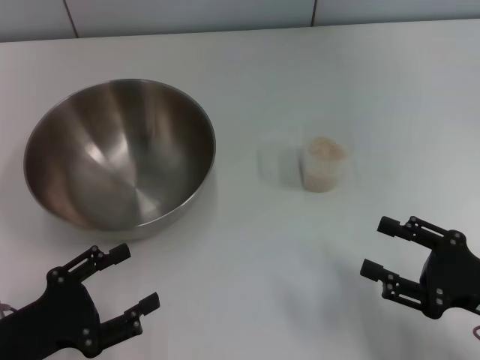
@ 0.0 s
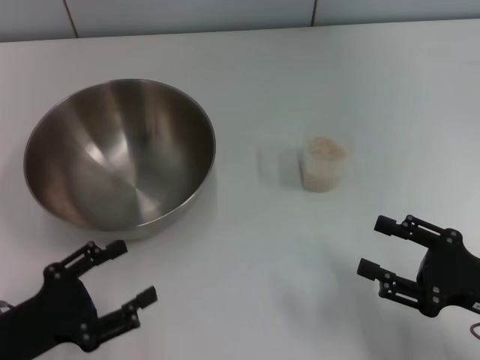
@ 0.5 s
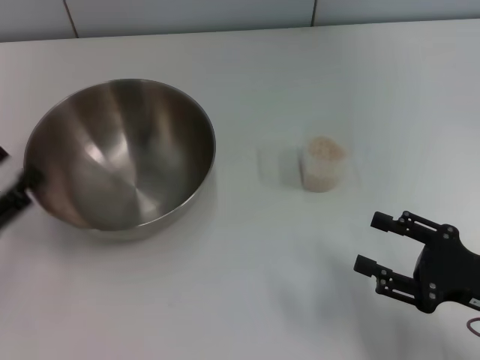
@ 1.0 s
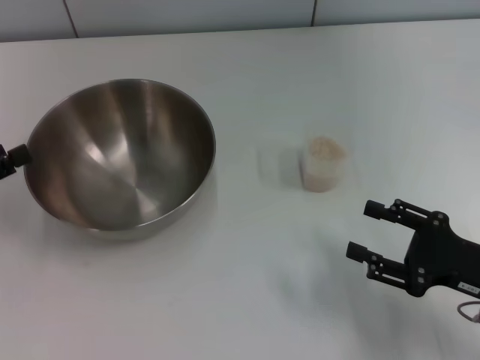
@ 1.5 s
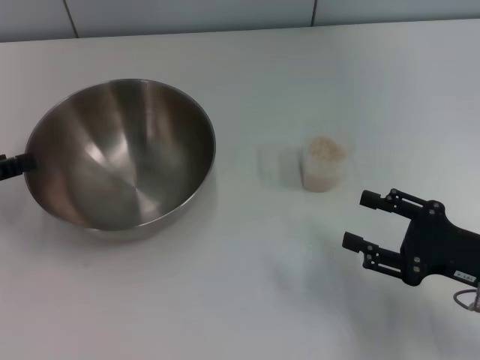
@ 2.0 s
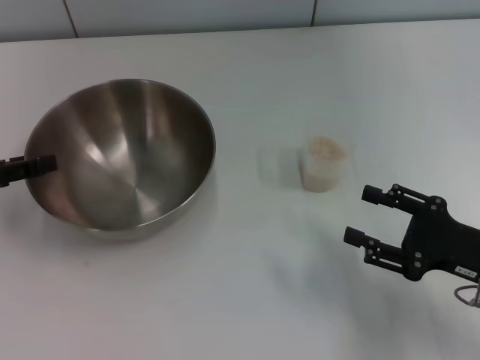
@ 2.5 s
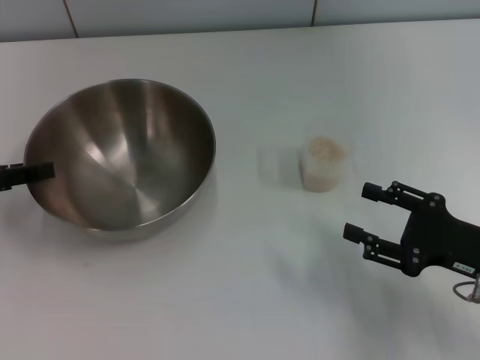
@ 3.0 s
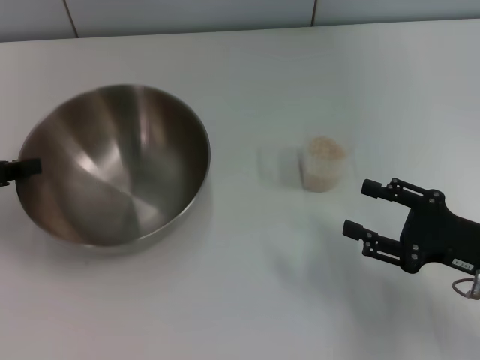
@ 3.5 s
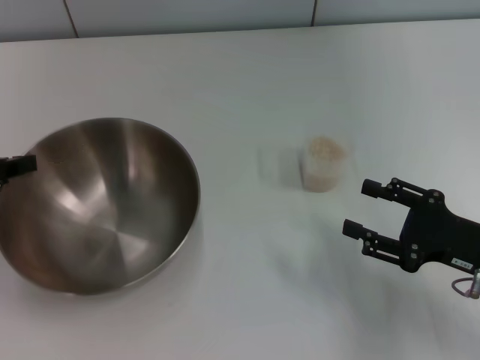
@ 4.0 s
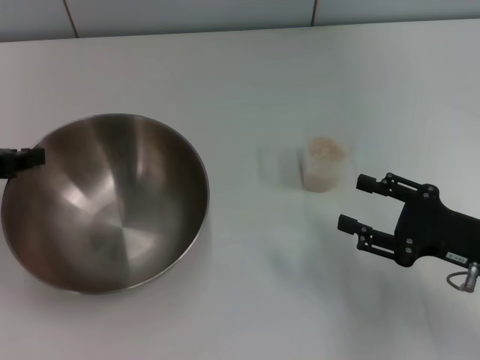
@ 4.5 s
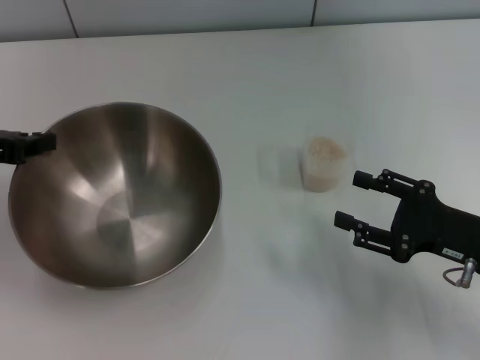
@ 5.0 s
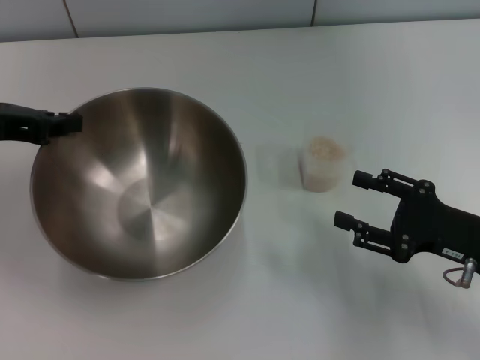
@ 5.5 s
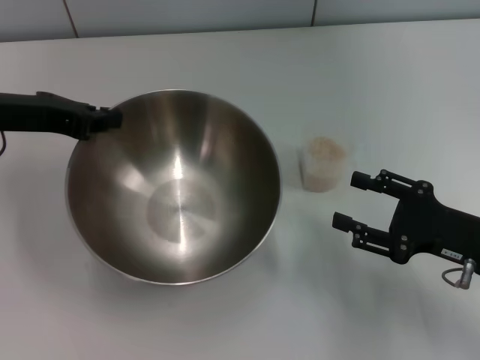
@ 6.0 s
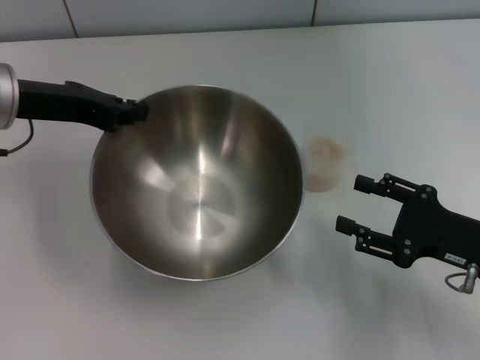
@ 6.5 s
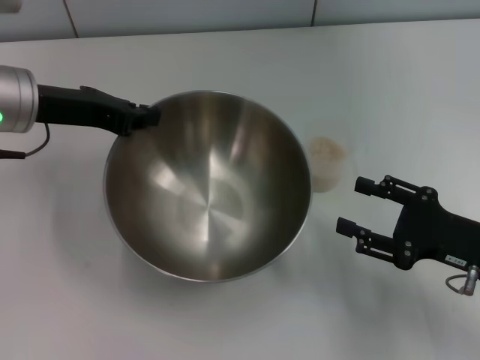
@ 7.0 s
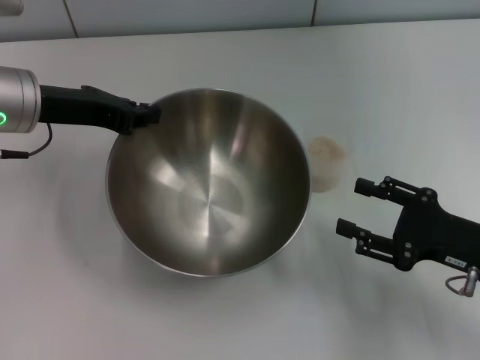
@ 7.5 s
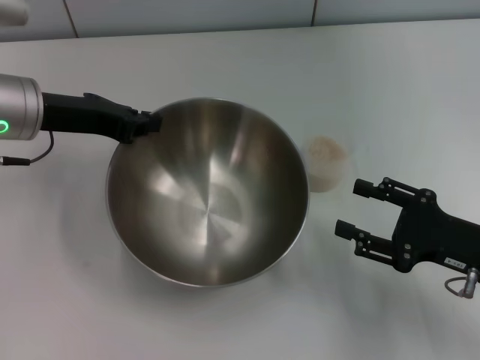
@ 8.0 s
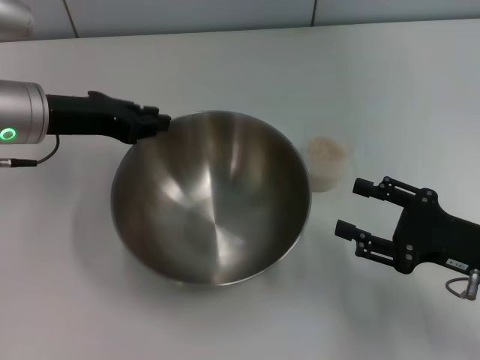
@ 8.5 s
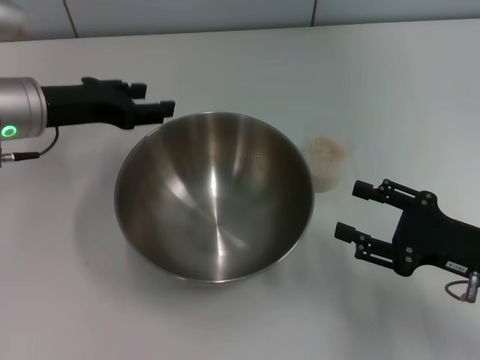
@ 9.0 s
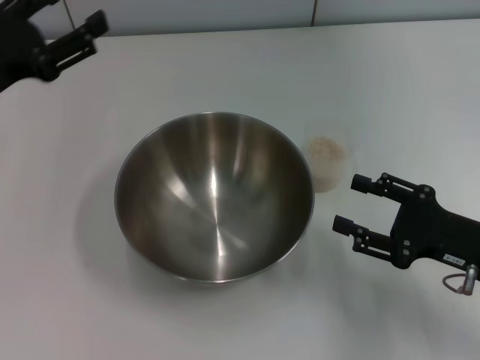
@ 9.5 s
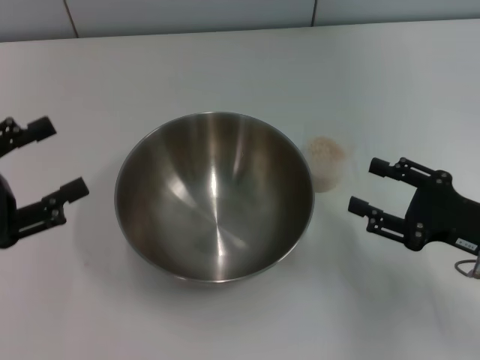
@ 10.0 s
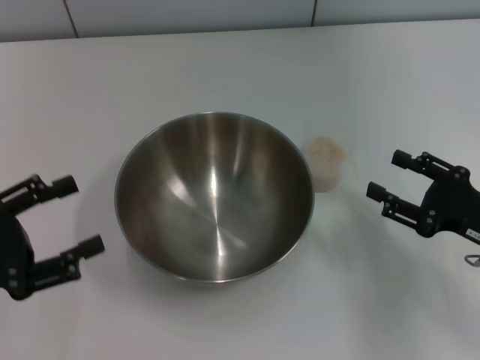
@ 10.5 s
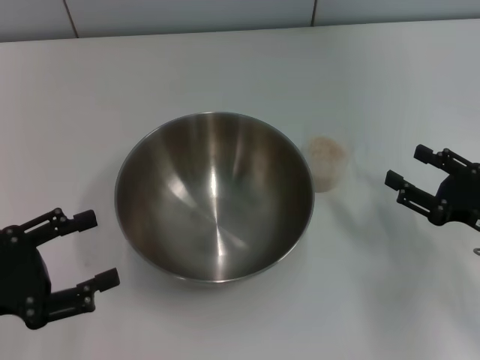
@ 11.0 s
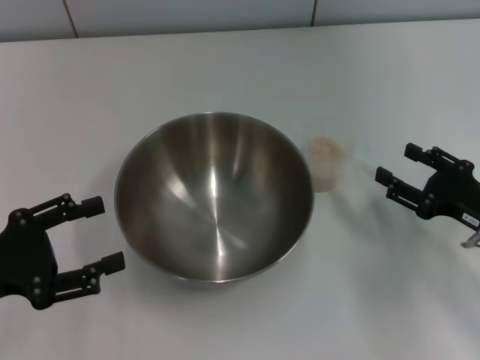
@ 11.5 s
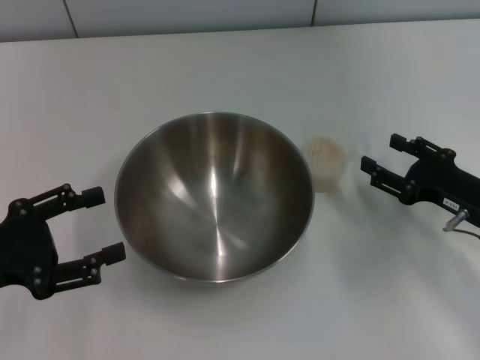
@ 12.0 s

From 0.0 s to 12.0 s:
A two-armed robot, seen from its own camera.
Task of the whole recording: Place the bowl in the middle of the table with one hand and pour the rice from the grain cup into it with the other hand.
Step, from 0.0 s to 5.0 s: Pick up the bowl with the left gripper.
Step, from 5.5 s to 9.0 s: Place the bowl in the center of view with the left gripper.
From 0.0 s to 2.0 s: The left gripper moves forward, upward and to the left, some 15 cm.
From 2.0 s to 4.0 s: The left gripper closes its fingers.
From 4.0 s to 6.0 s: The left gripper moves to the right, about 10 cm.
From 8.0 s to 10.0 s: The left gripper is displaced backward and to the left by approximately 20 cm, and opens.
From 10.0 s to 12.0 s: The grippers move only a little.

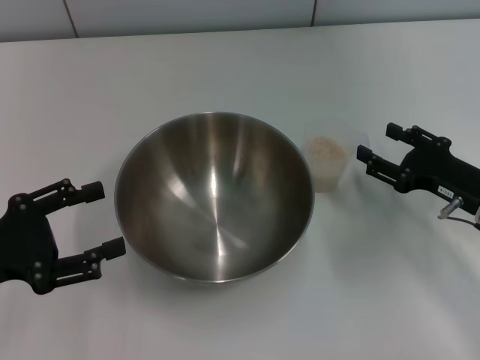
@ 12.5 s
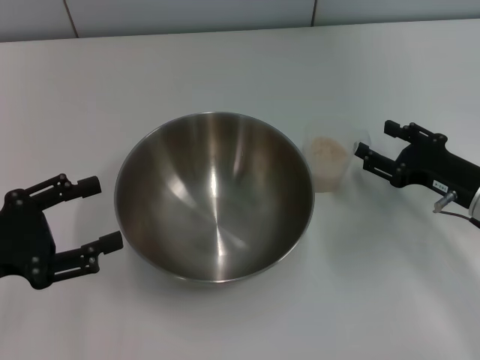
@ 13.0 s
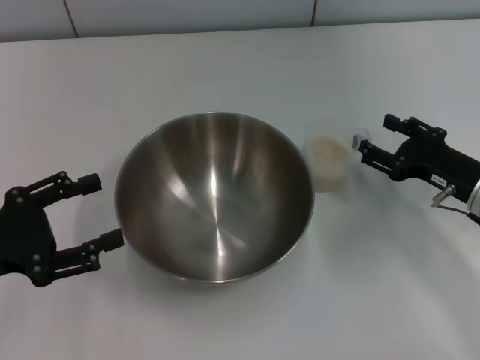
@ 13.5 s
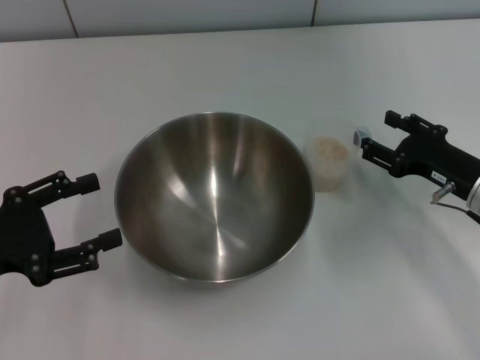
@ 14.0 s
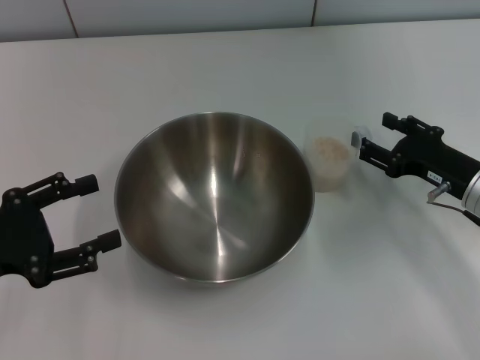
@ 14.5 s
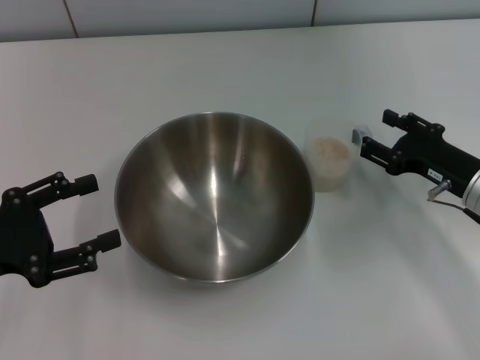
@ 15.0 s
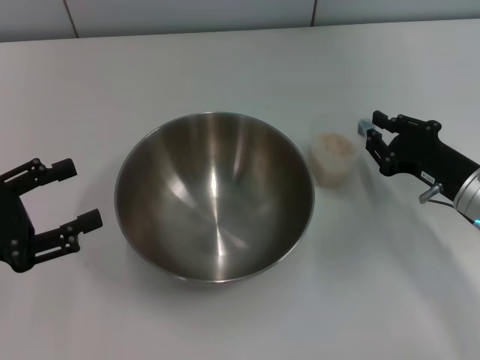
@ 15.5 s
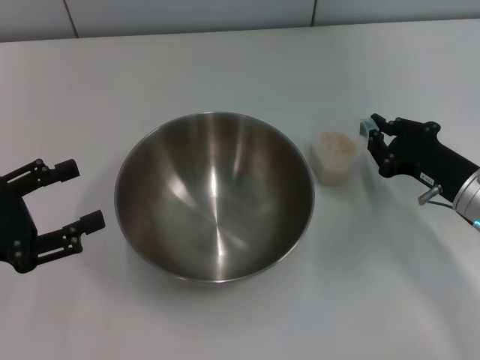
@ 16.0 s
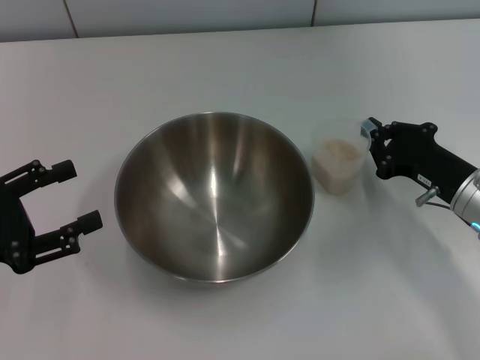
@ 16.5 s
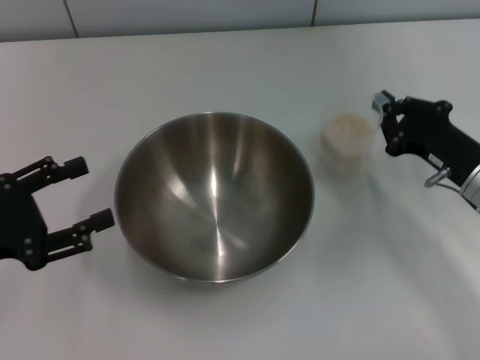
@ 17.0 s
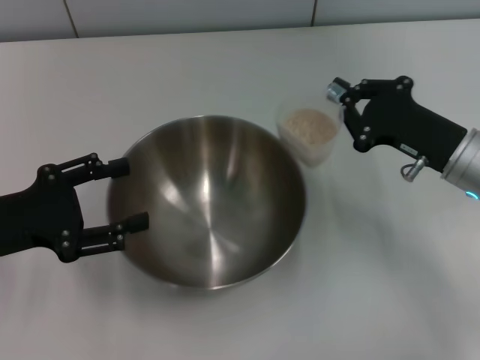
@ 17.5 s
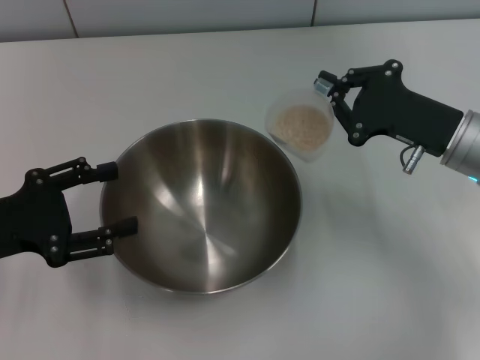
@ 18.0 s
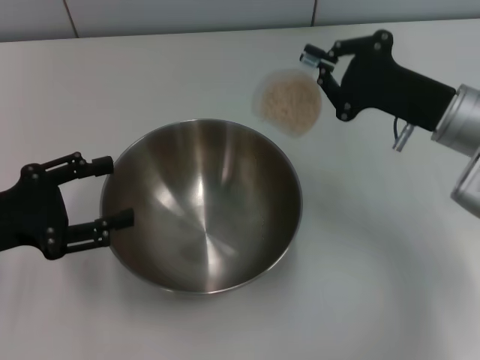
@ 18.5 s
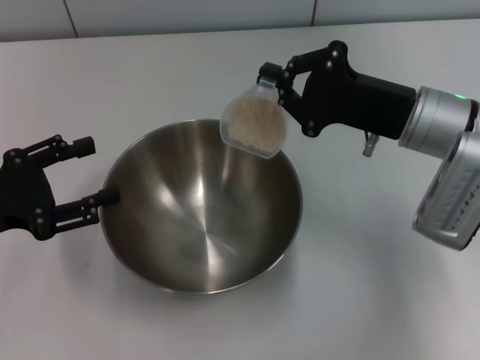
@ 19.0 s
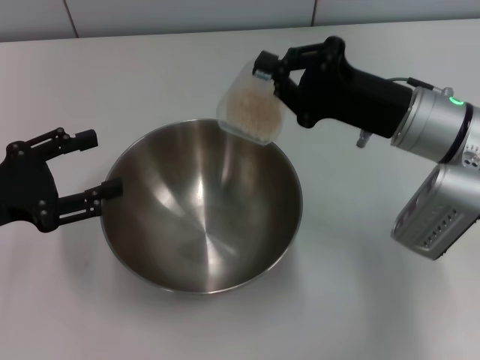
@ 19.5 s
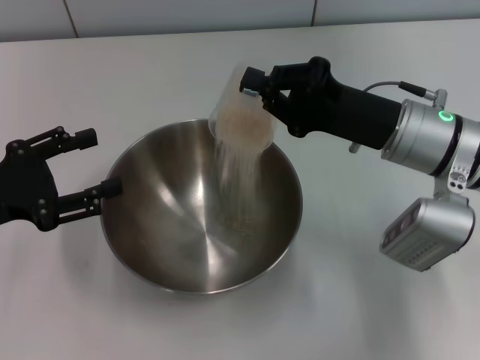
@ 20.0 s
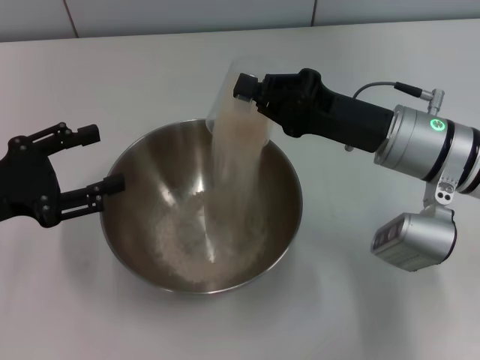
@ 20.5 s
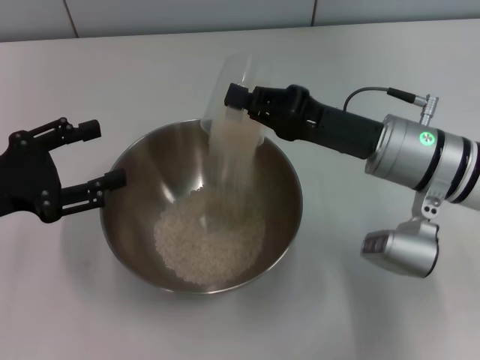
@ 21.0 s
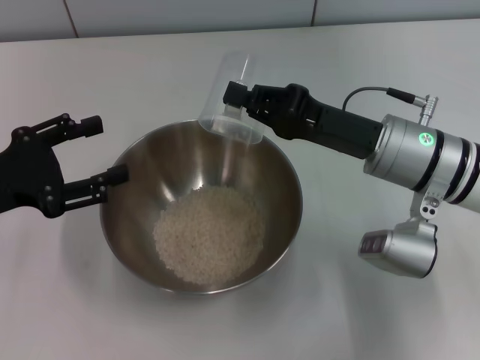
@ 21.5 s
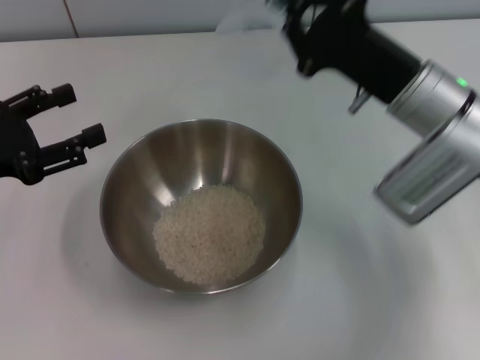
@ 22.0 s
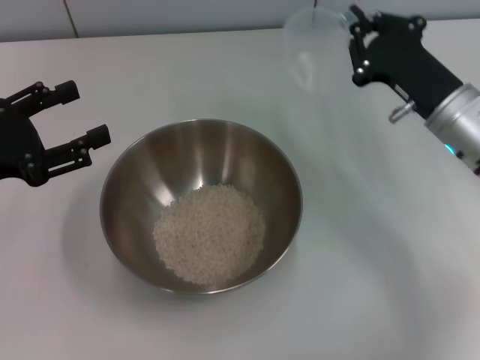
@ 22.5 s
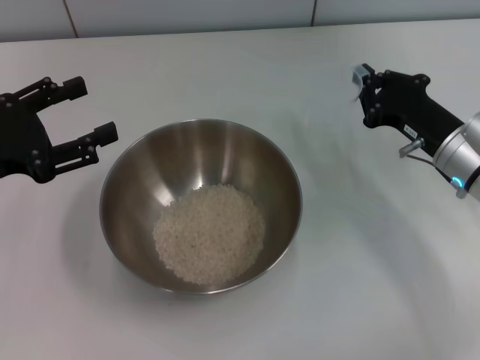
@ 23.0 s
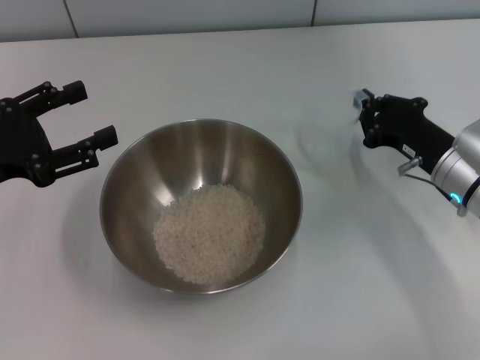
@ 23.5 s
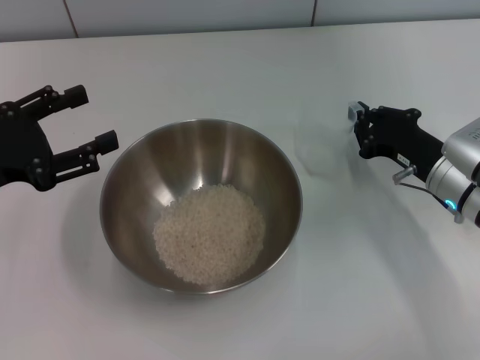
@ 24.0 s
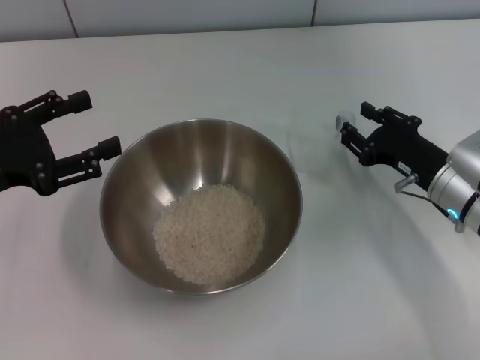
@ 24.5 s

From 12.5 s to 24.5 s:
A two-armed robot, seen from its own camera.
Task of the whole recording: Place the bowl in the middle of the table with one hand and pour the rice from the grain cup into it with the other hand.
Step, from 12.5 s to 17.5 s: Pick up the cup with rice in it with the right gripper.
Step, from 18.0 s to 22.0 s: Pour the rice from the cup into the bowl with the right gripper.
From 12.5 s to 14.5 s: The grippers make only small movements.
From 14.5 s to 16.5 s: The right gripper closes.
From 16.5 s to 18.5 s: The right gripper heads upward, covering approximately 10 cm.
From 18.5 s to 20.5 s: The right gripper shifts some 5 cm to the left.
From 20.5 s to 22.5 s: The right gripper heads to the right, covering roughly 5 cm.
From 22.5 s to 24.5 s: The right gripper moves downward, roughly 5 cm.

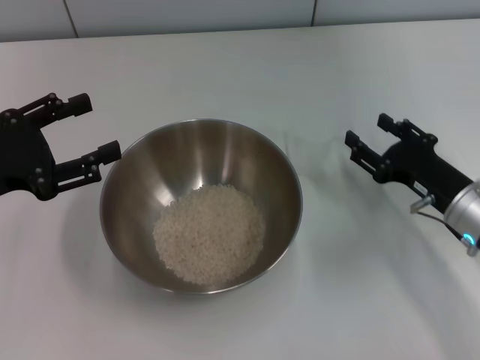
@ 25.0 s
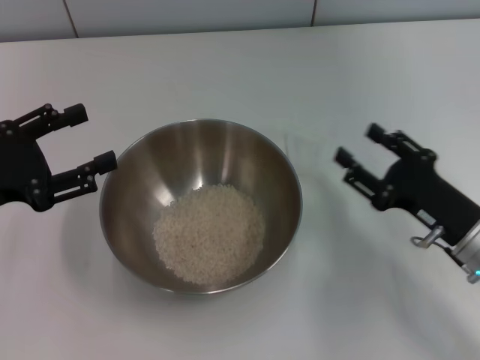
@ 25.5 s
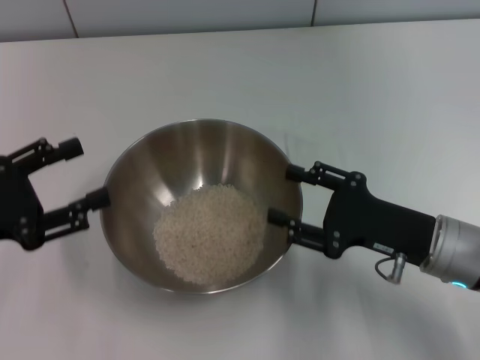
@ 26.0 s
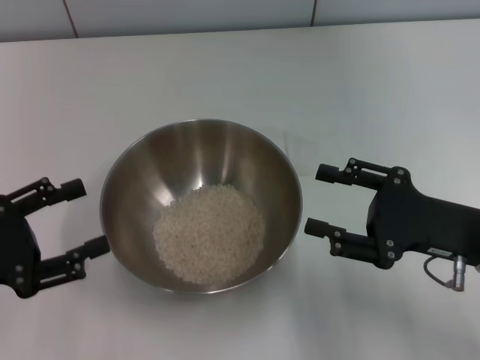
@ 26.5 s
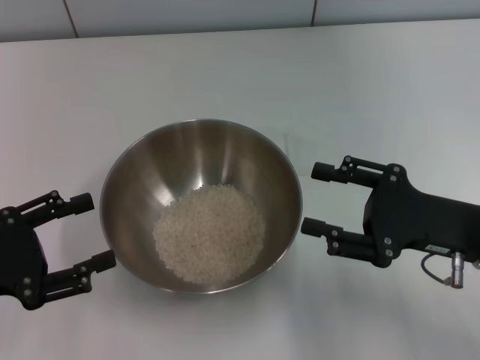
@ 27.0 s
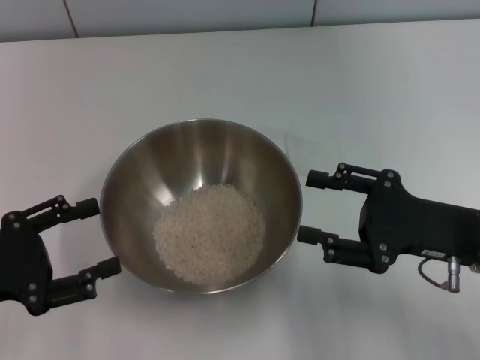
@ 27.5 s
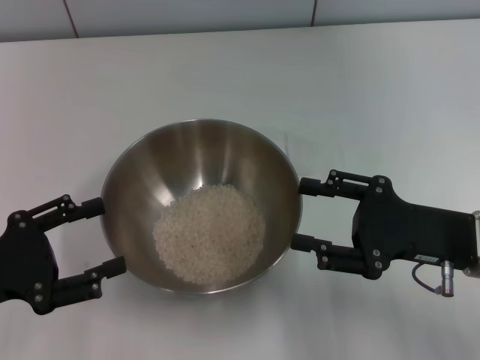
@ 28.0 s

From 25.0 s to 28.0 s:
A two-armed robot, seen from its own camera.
Task of the whole recording: Place the bowl in the middle of the table with one hand and pour the rice from the grain cup into it with the other hand.
From 25.0 s to 26.5 s: The left gripper moves backward, about 5 cm, while the right gripper travels upward by about 5 cm.
From 26.5 s to 28.0 s: Both grippers stay about where they are.
